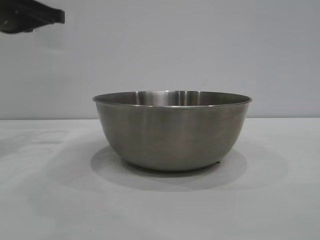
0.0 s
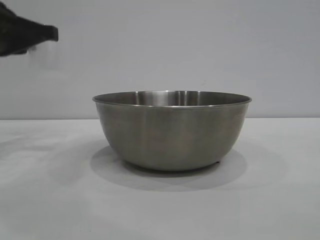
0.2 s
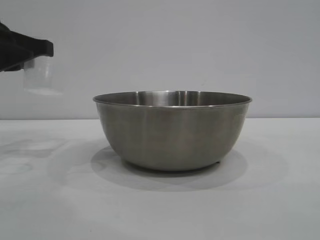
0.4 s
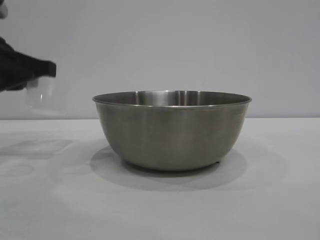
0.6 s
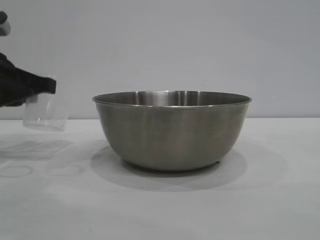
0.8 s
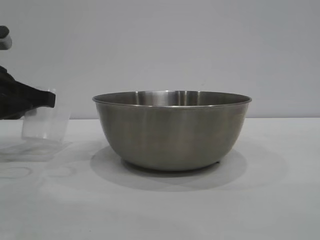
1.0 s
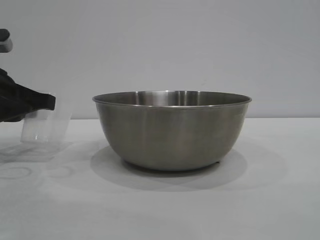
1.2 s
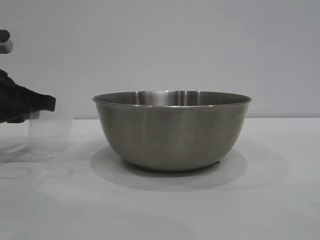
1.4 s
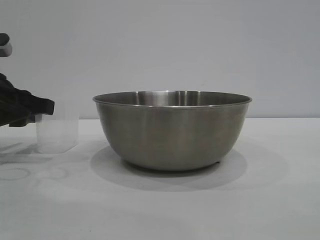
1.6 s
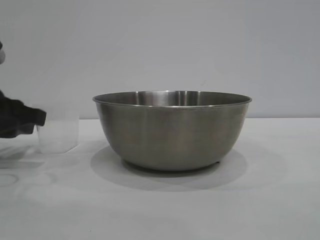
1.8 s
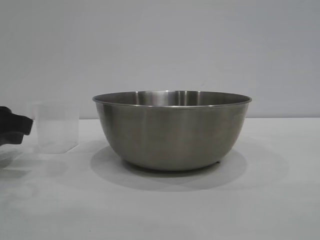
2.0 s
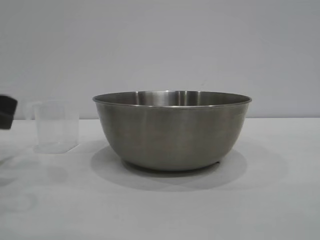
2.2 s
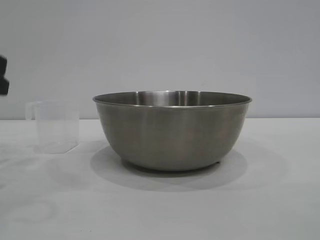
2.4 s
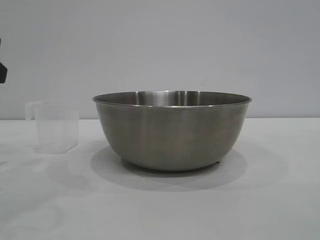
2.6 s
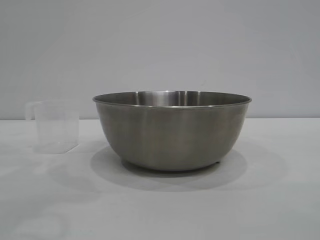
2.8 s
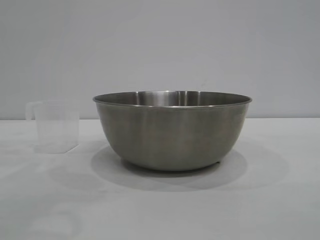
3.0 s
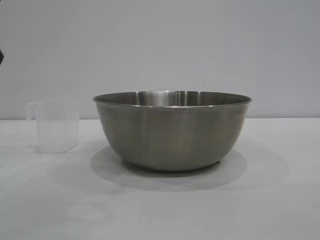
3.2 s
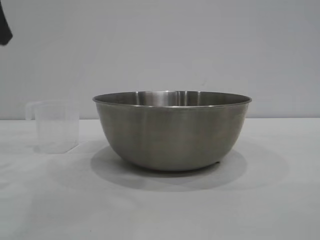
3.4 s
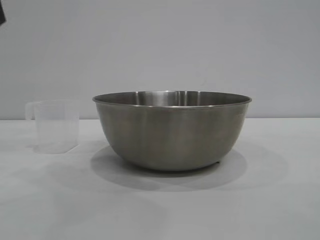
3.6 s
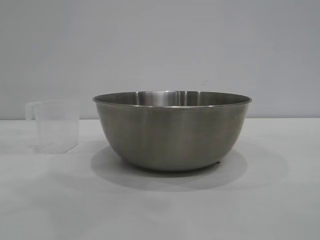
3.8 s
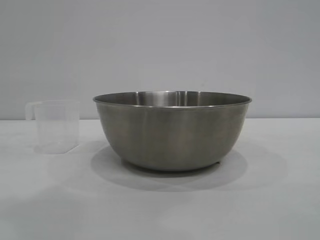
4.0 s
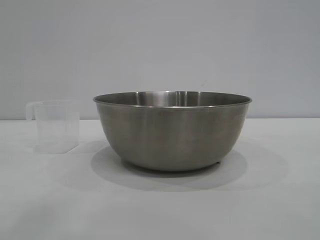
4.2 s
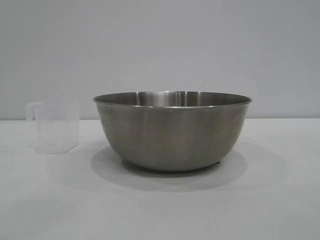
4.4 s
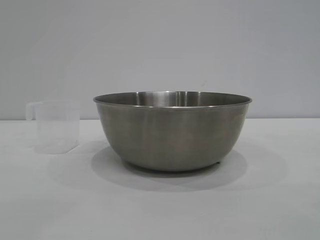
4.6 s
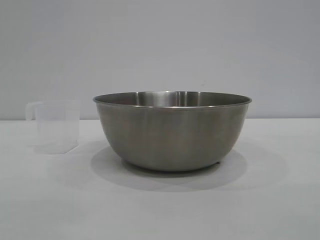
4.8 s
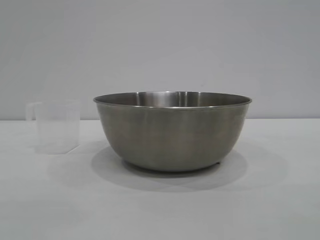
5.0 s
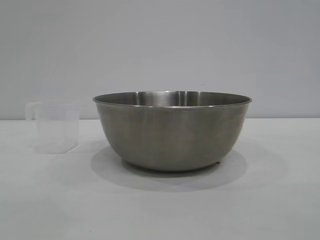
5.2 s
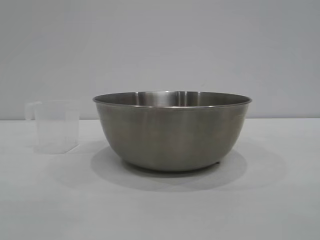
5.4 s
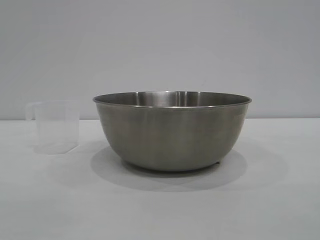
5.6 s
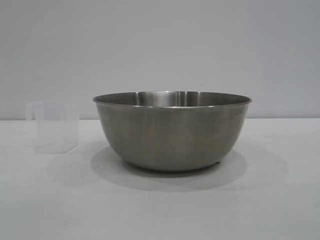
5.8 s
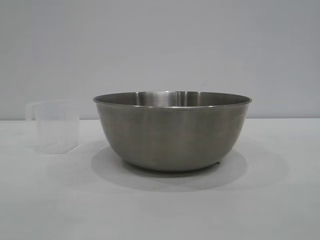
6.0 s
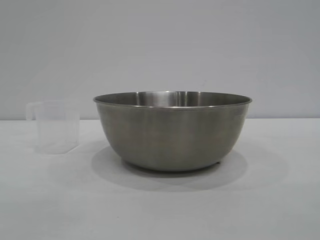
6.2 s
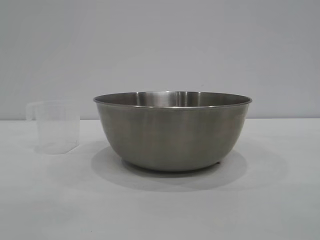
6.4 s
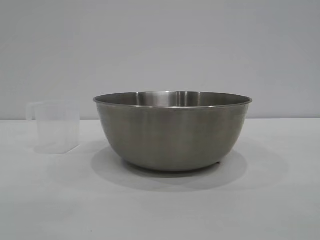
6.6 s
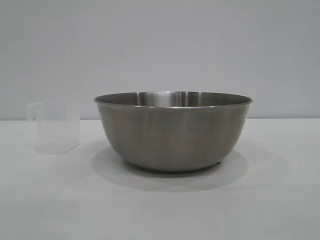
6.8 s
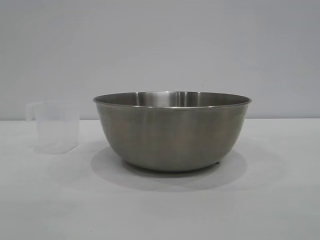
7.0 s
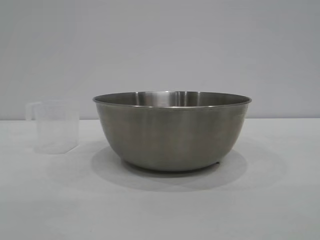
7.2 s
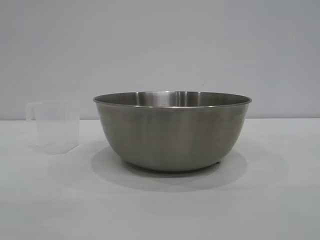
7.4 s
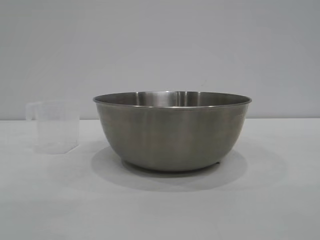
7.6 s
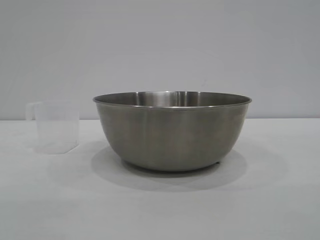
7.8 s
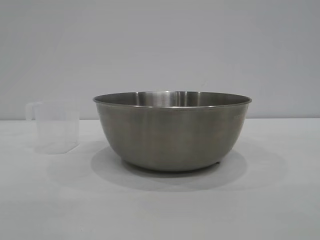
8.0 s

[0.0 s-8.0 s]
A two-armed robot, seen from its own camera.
Task of the whole recording: the right gripper grasp the rice container and place it in the center of the table, the left gripper grasp the rice scoop and pour the rice into the rice container.
Step, 0.0 to 2.0 s: Place the cup on the table with the left gripper.
